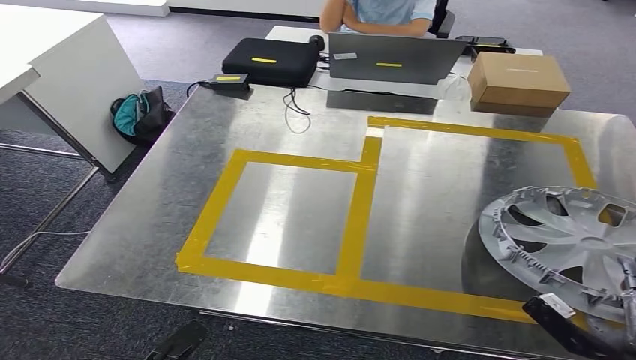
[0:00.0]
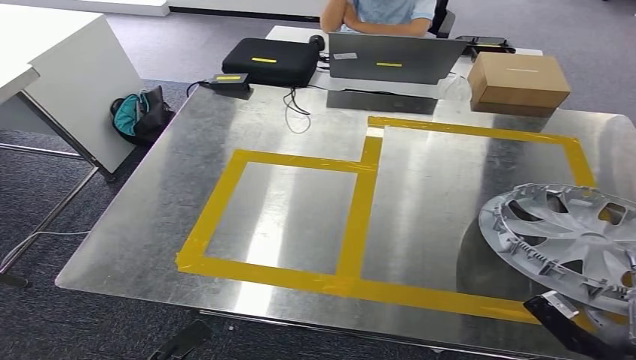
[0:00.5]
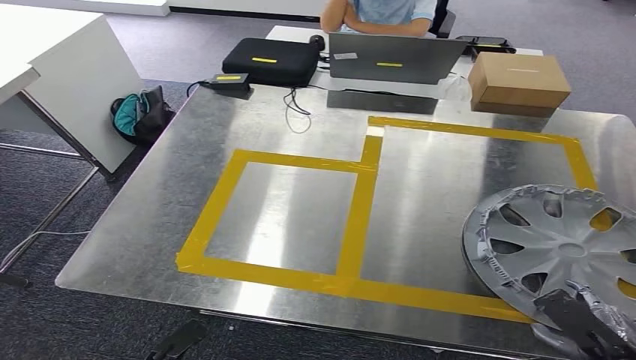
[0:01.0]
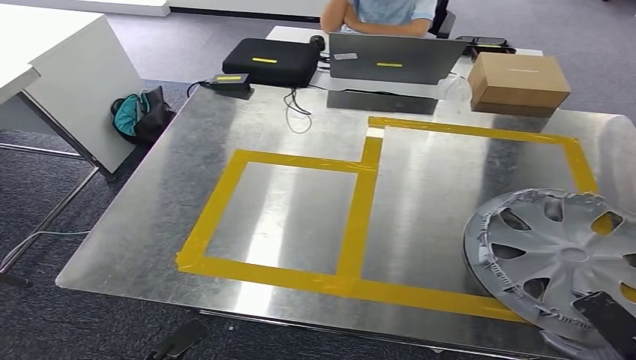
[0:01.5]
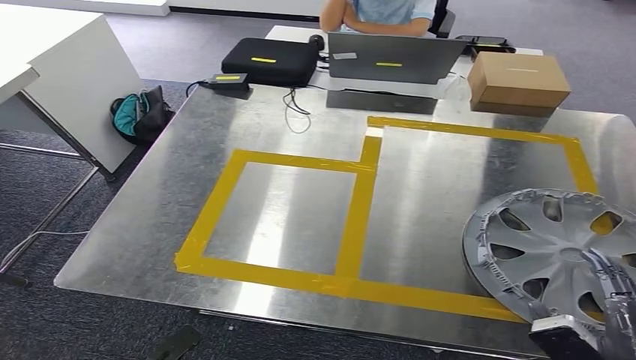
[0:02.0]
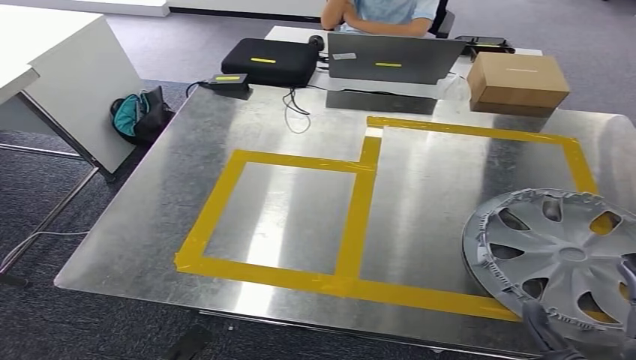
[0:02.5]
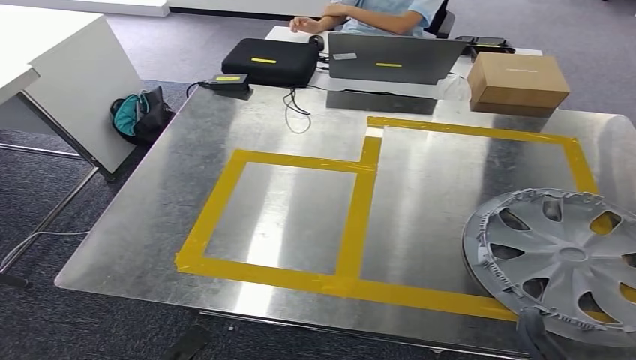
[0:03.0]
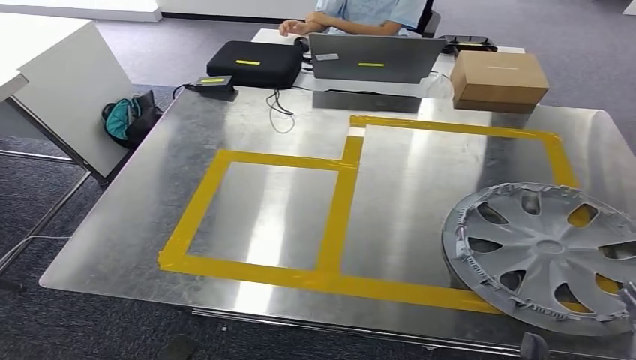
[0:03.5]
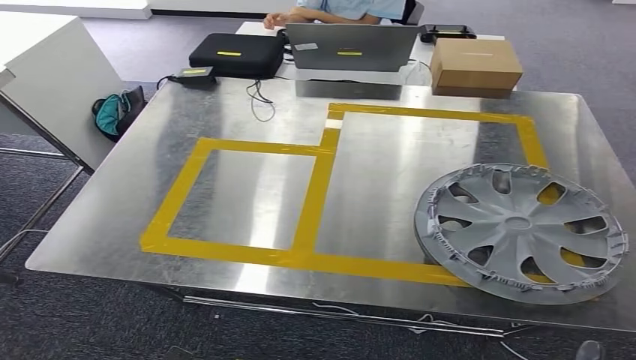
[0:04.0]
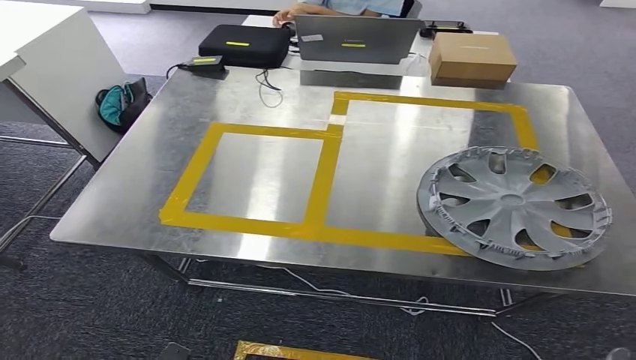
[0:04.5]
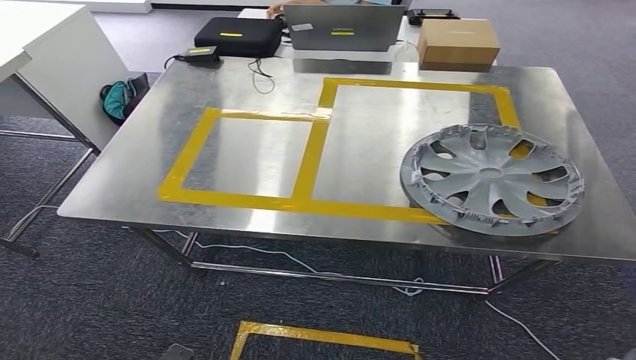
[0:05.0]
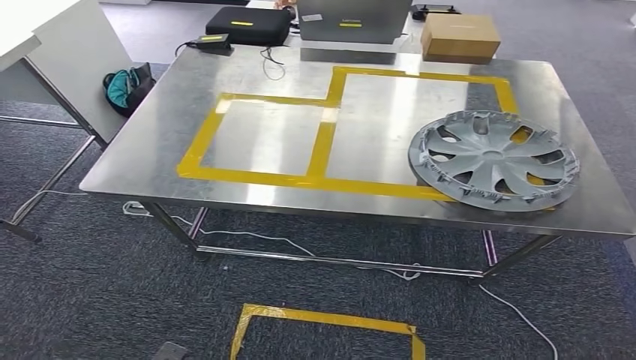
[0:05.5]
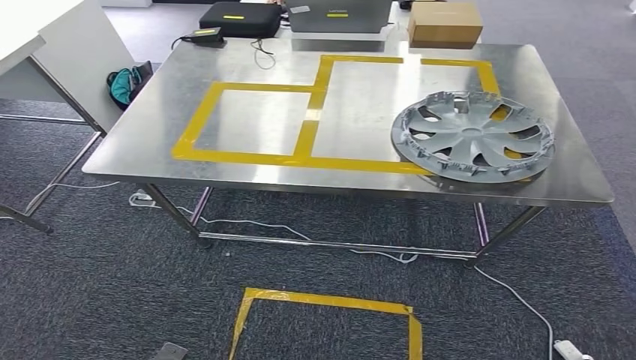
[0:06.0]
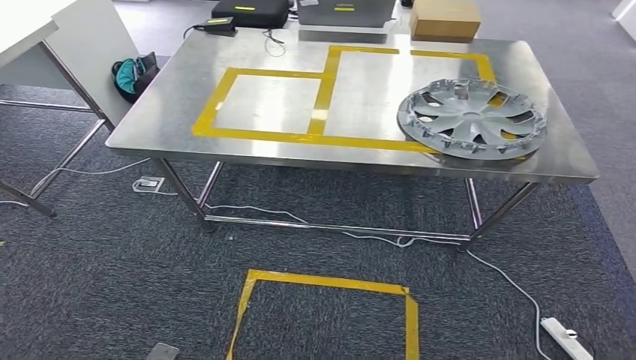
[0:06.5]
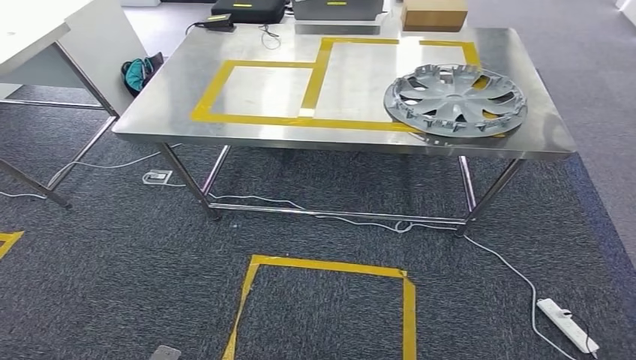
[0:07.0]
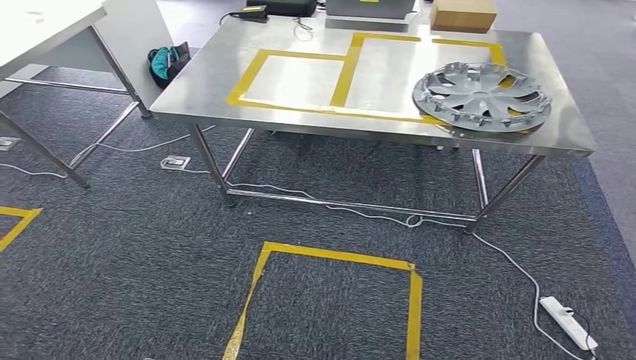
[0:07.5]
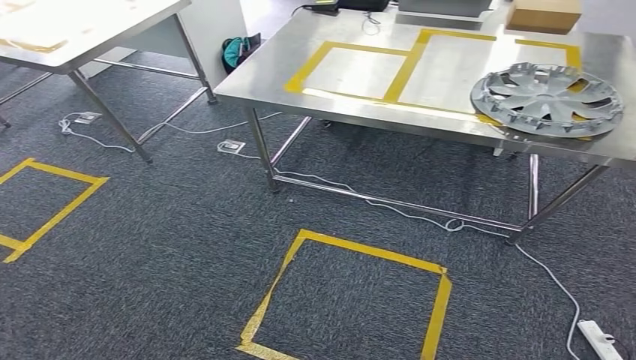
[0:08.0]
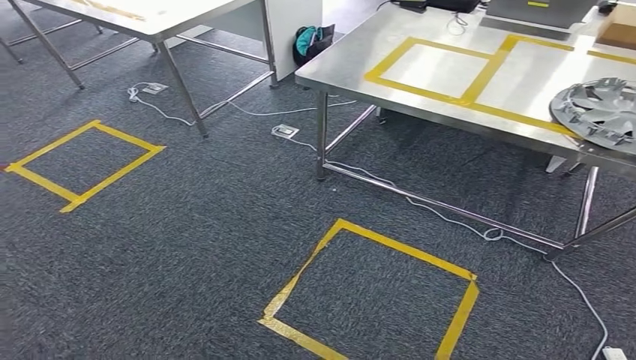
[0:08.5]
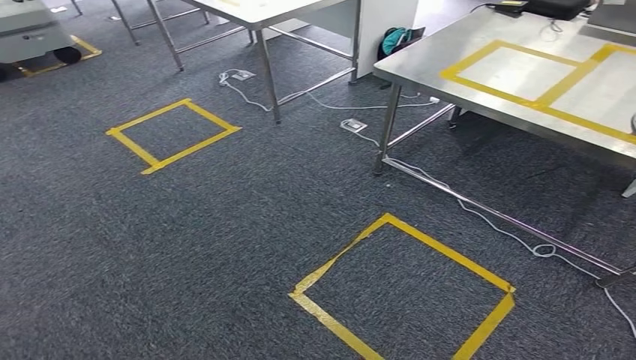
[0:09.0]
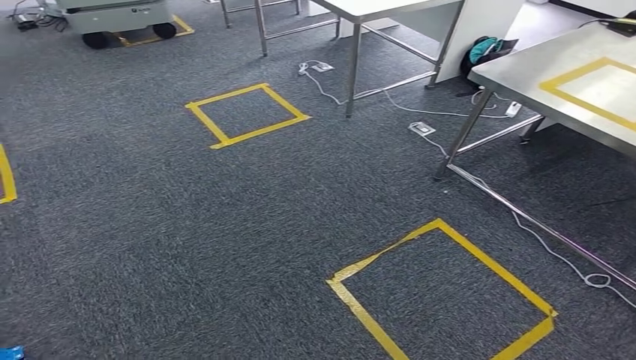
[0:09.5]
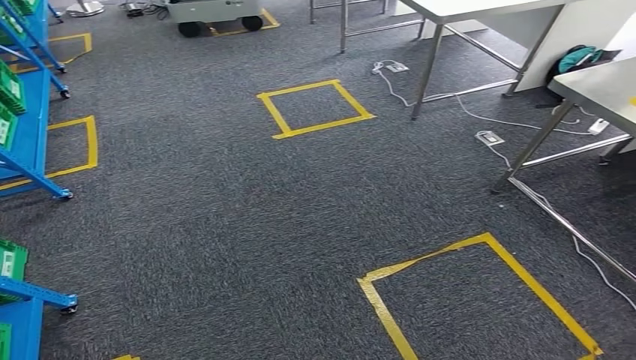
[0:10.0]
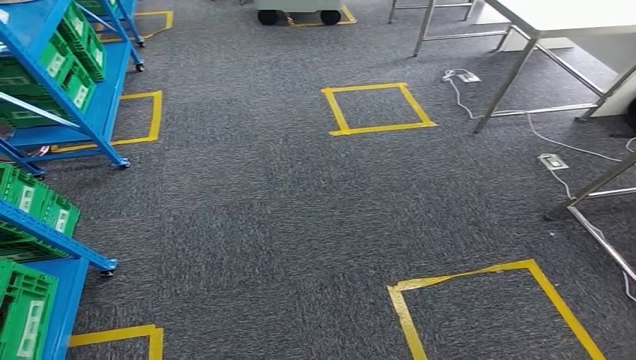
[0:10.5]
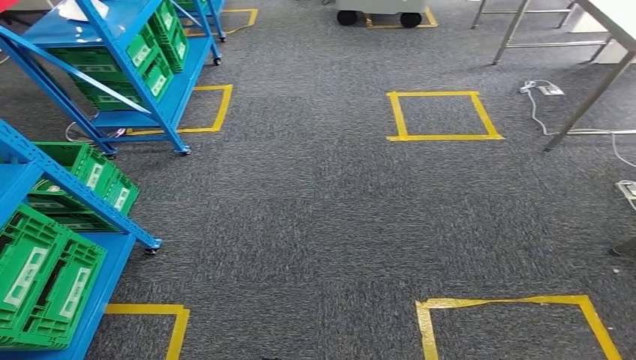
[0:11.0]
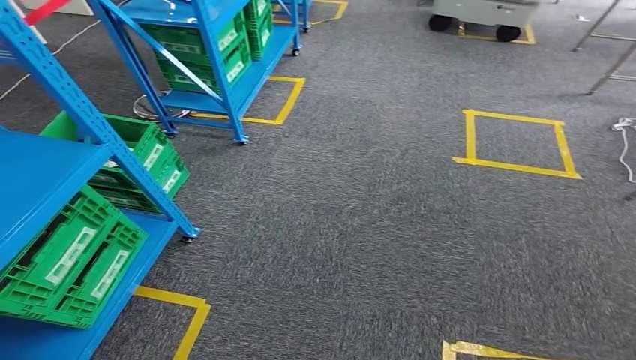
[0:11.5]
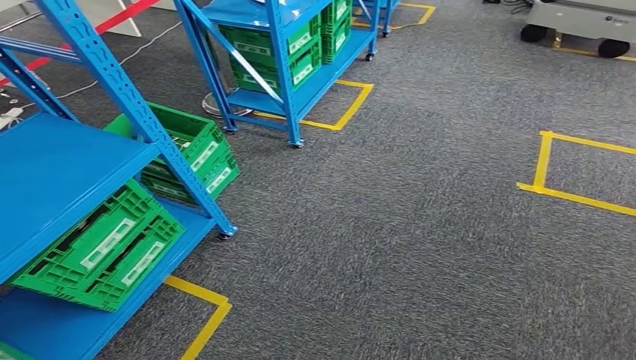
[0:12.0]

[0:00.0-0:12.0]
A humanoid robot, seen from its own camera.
Step, 0:00.0 to 0:04.0: Insert the small component into the corresponding slot on the workbench.

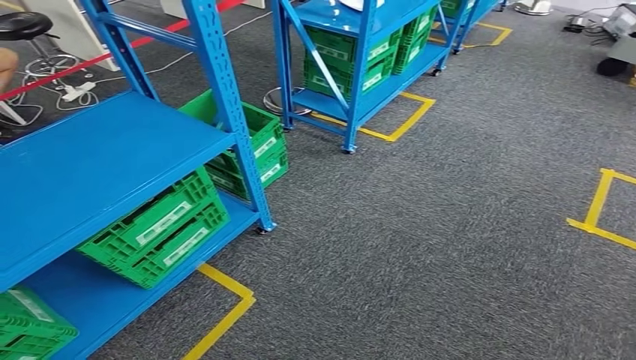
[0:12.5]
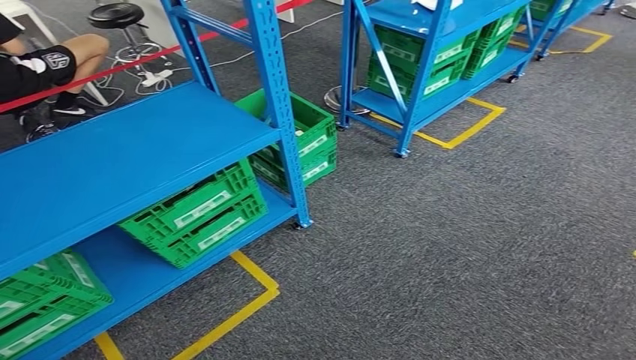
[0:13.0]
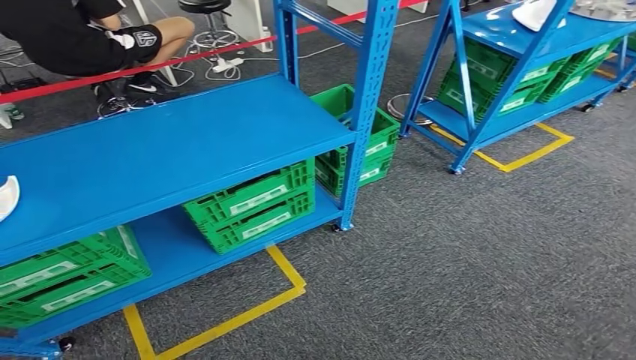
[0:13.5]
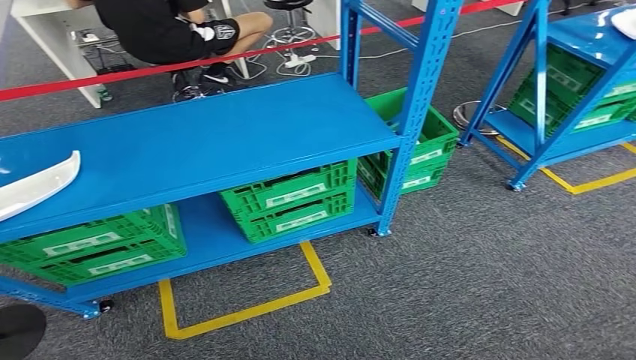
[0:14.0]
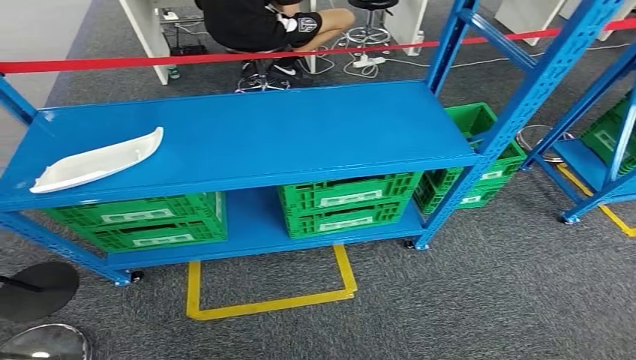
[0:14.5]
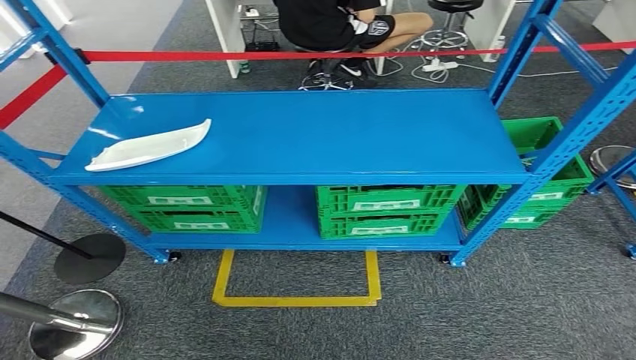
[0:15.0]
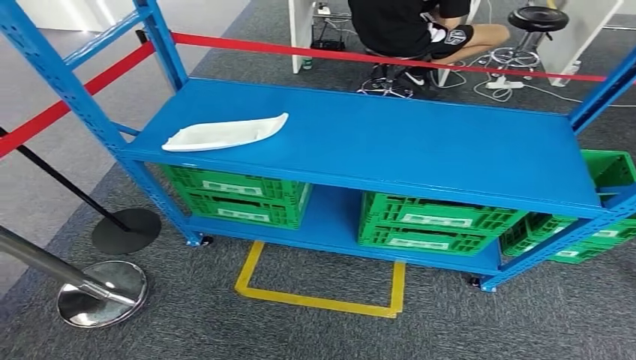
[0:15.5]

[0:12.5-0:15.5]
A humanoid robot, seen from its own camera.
Step, 0:12.5 to 0:15.5: Move to the initial position of the workbench.
